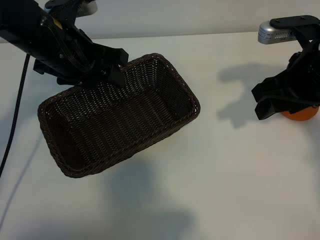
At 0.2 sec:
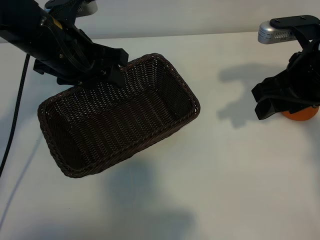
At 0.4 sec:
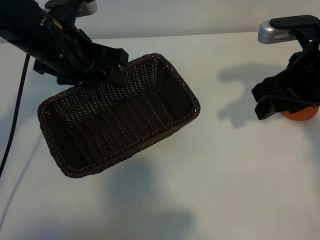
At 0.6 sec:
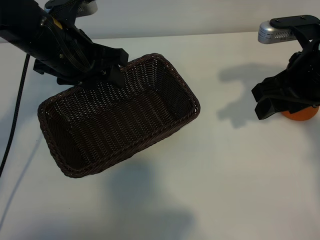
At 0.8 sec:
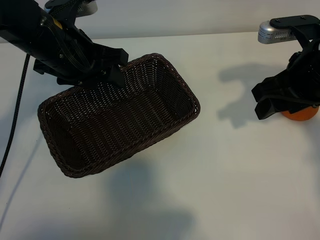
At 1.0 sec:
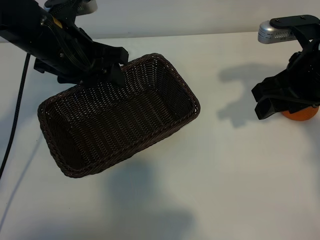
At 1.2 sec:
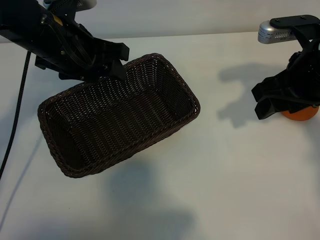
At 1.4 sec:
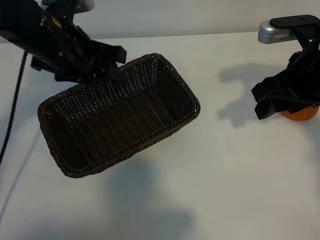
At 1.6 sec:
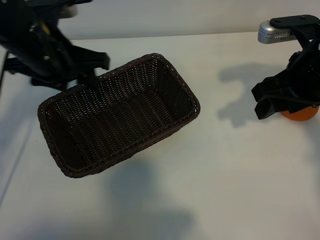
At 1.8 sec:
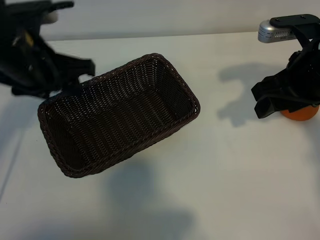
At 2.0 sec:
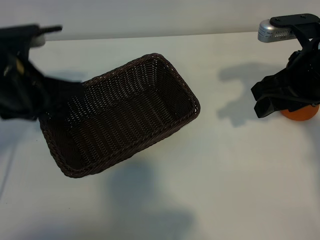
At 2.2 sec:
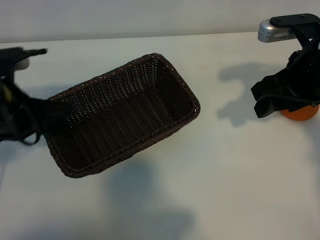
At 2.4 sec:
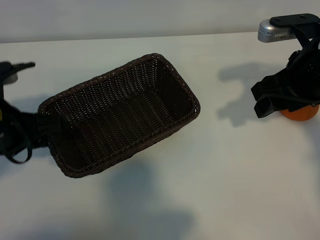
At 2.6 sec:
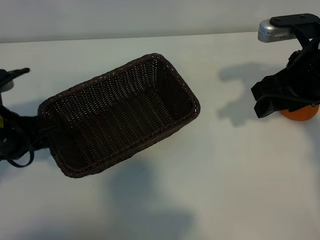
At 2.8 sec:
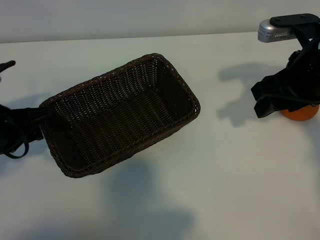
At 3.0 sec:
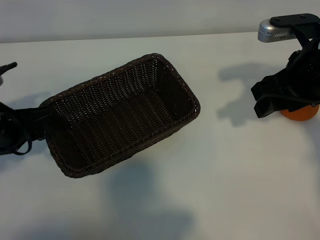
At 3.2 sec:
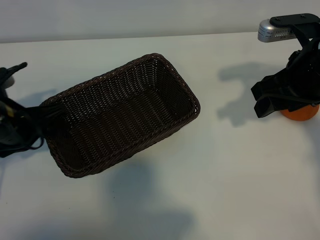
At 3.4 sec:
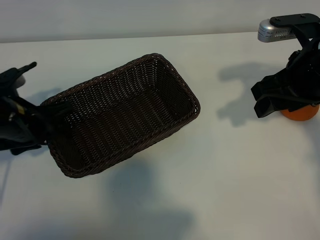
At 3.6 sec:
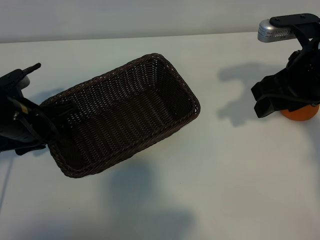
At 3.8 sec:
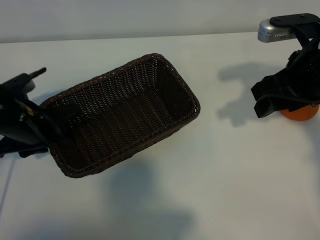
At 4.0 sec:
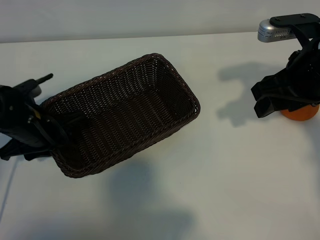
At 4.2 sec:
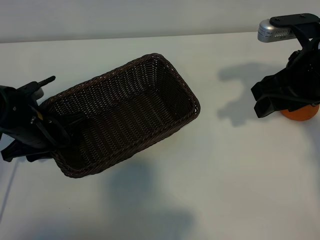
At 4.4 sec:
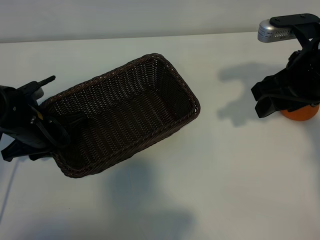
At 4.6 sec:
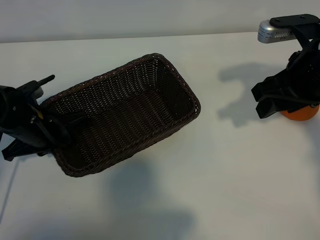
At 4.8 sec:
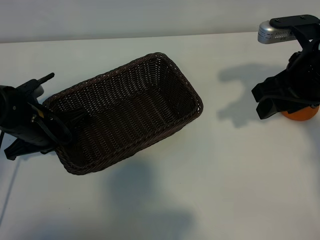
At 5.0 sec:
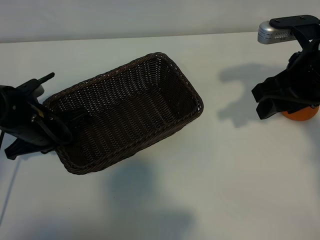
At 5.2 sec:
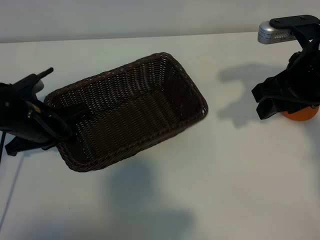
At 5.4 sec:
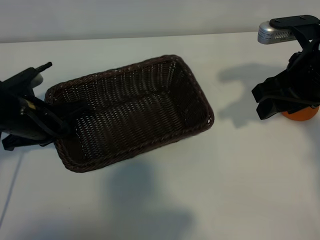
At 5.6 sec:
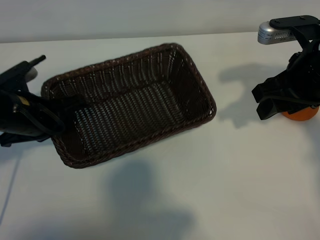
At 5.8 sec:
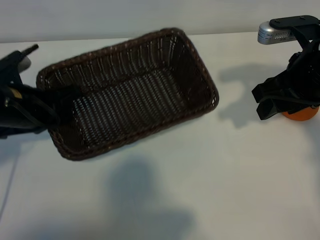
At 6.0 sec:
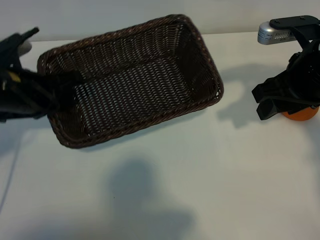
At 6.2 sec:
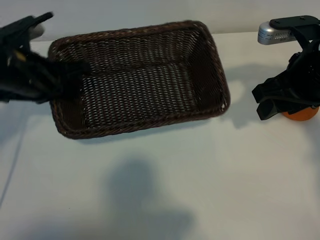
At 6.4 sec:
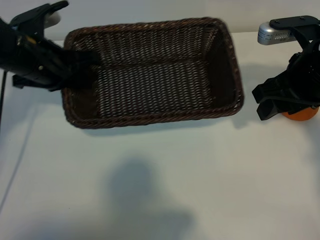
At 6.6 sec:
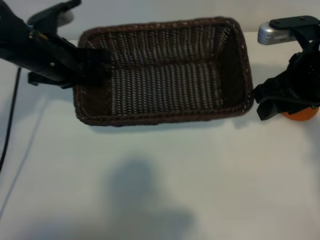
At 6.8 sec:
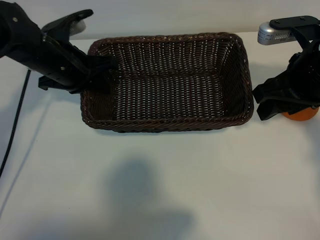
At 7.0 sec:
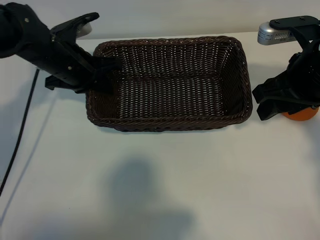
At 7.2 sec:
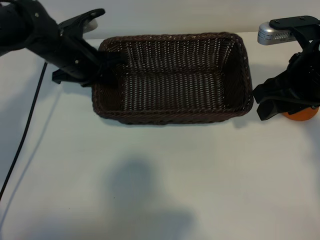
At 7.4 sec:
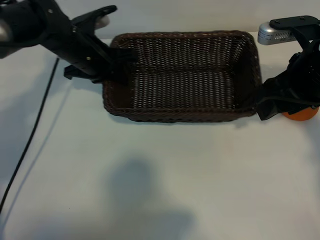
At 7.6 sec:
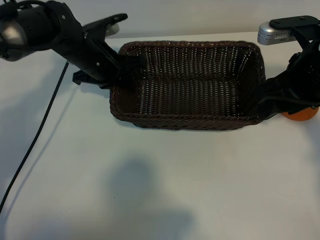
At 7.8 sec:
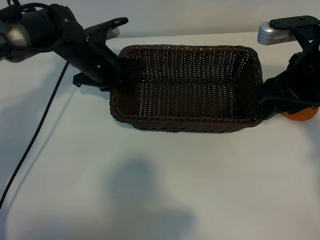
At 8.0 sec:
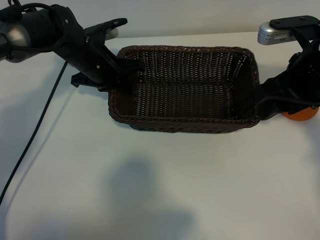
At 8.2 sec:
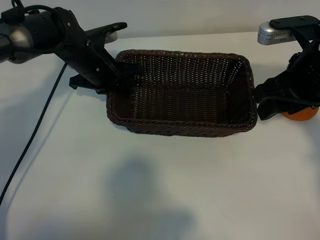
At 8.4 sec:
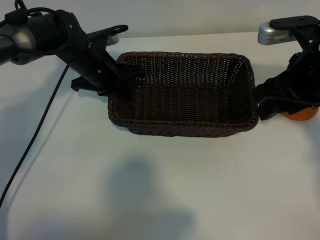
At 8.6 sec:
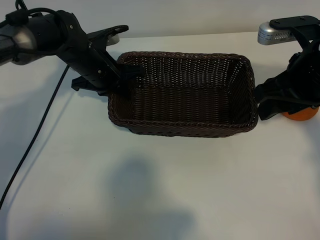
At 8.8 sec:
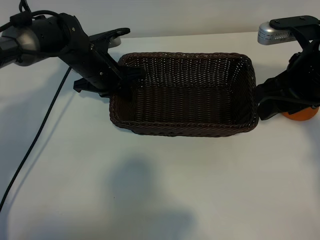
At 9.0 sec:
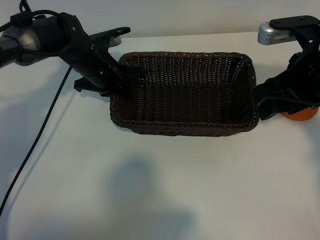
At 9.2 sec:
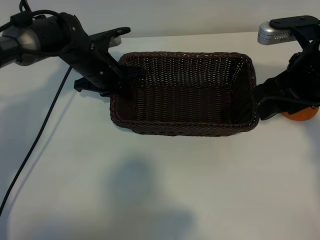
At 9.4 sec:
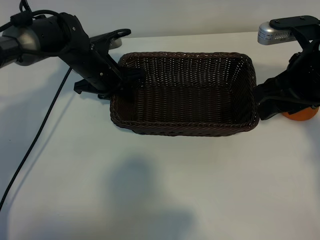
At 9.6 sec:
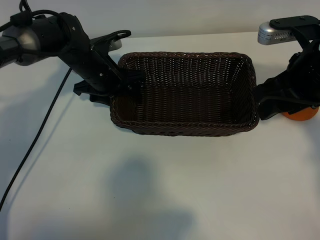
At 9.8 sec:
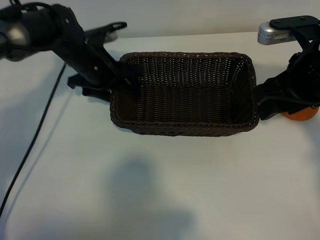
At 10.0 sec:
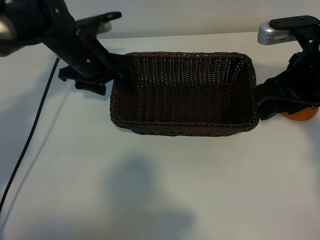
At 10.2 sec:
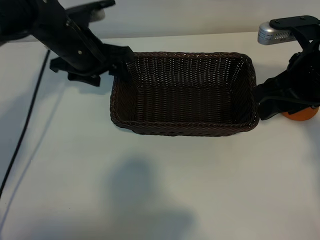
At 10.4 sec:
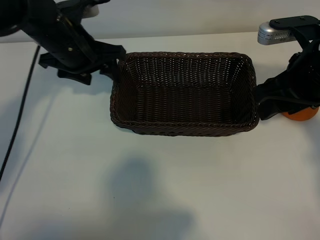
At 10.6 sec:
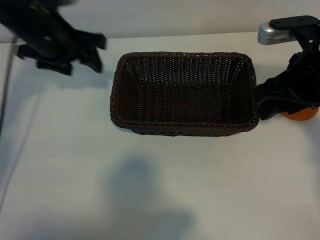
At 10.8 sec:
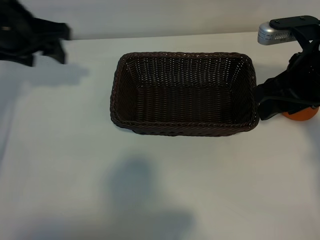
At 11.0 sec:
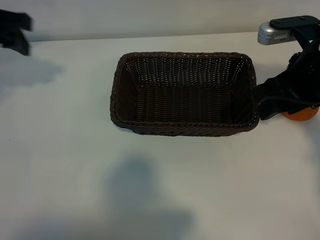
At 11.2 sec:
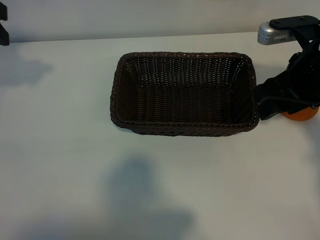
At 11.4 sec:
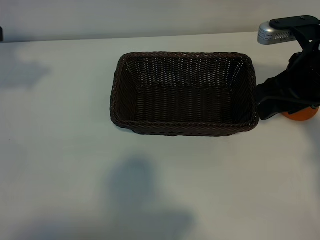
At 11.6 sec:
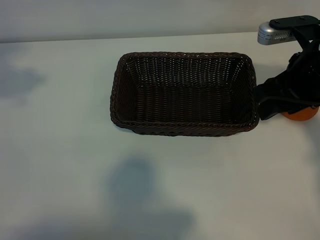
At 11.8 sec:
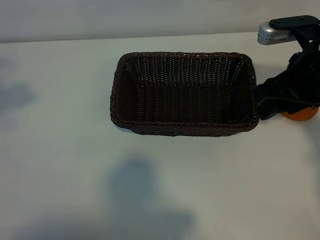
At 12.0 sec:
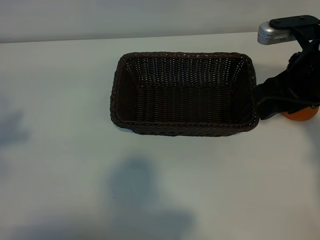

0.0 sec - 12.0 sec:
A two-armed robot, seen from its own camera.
Task of the whole recording: pick up the orange and put it into the basket.
Step, 1.0 sec - 4.6 sec: Grasp the basket with left gripper.
Step, 4.8 sec - 9.6 sec: Place the basket in the center of view with left gripper.

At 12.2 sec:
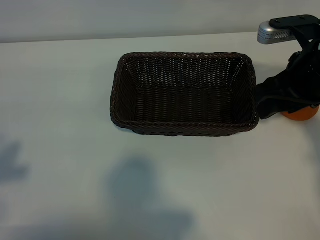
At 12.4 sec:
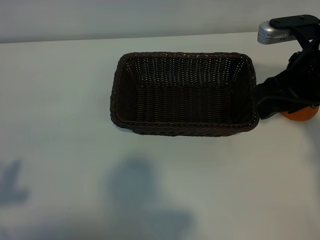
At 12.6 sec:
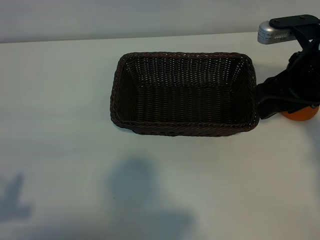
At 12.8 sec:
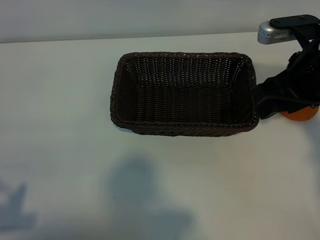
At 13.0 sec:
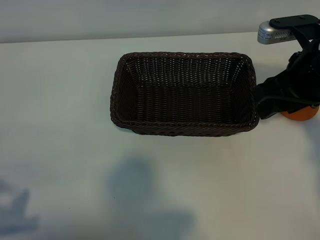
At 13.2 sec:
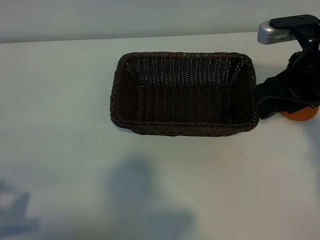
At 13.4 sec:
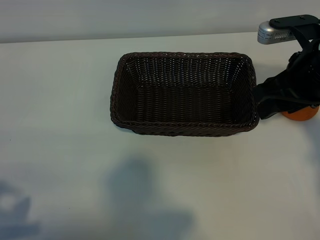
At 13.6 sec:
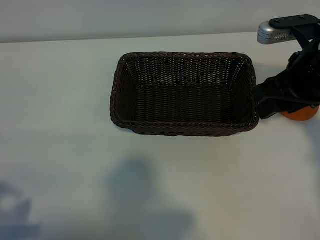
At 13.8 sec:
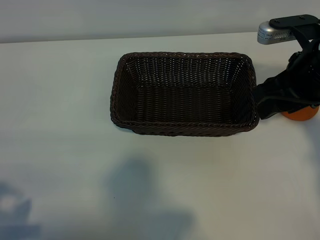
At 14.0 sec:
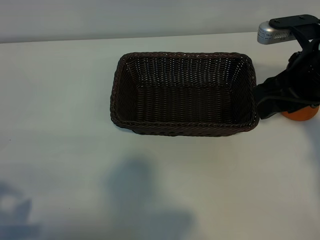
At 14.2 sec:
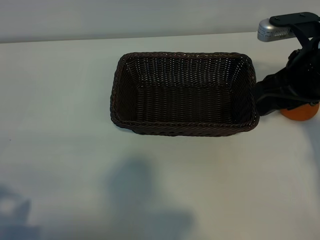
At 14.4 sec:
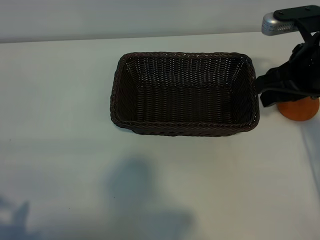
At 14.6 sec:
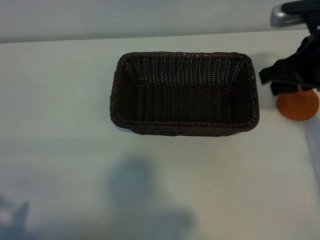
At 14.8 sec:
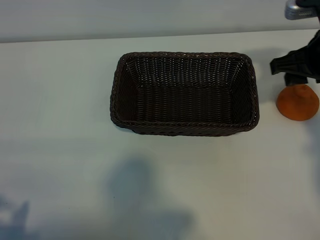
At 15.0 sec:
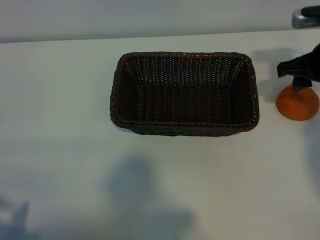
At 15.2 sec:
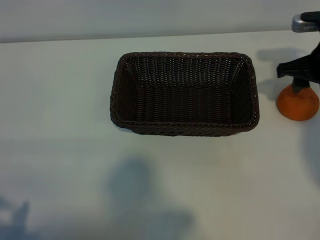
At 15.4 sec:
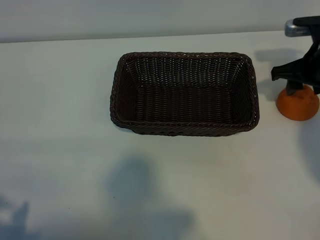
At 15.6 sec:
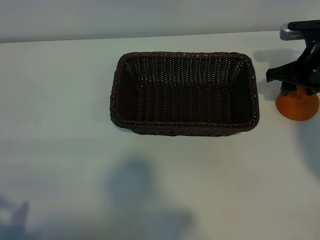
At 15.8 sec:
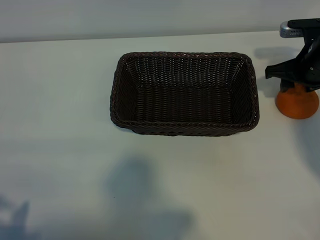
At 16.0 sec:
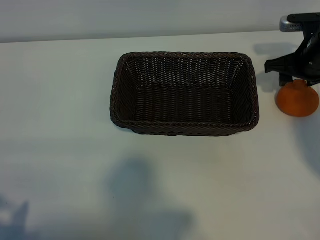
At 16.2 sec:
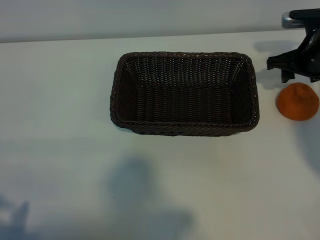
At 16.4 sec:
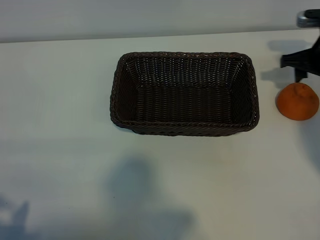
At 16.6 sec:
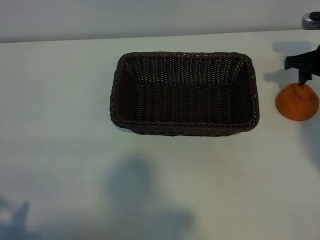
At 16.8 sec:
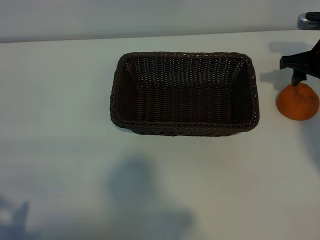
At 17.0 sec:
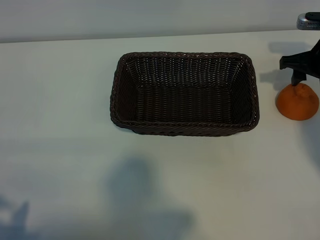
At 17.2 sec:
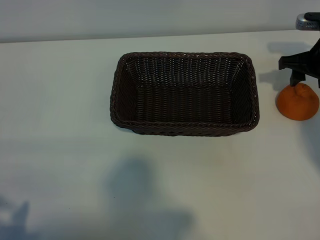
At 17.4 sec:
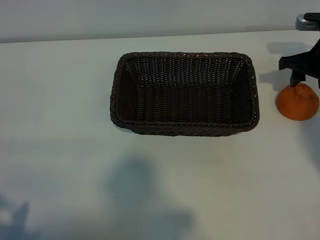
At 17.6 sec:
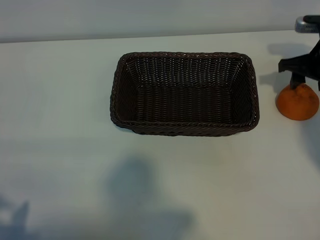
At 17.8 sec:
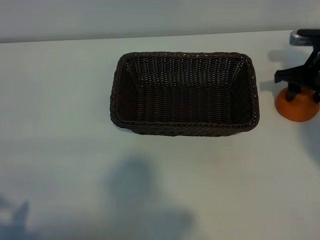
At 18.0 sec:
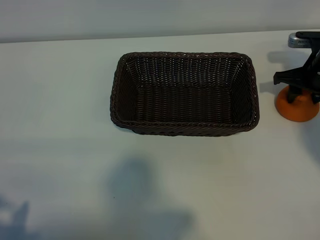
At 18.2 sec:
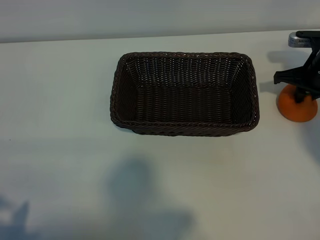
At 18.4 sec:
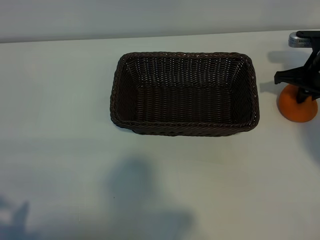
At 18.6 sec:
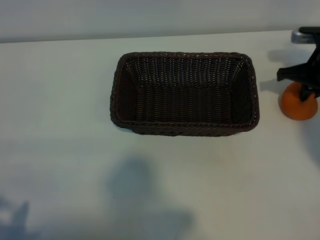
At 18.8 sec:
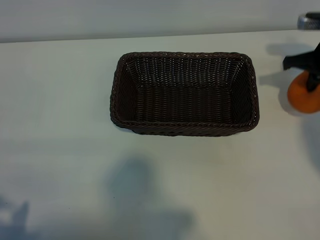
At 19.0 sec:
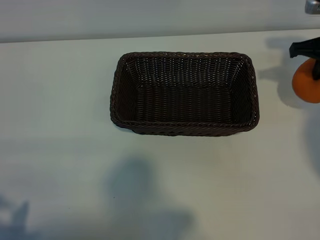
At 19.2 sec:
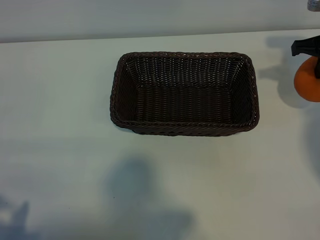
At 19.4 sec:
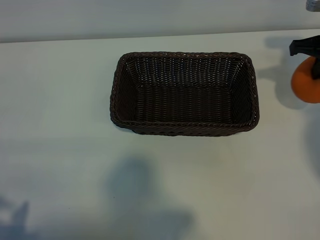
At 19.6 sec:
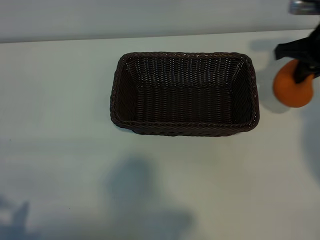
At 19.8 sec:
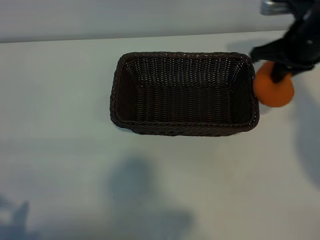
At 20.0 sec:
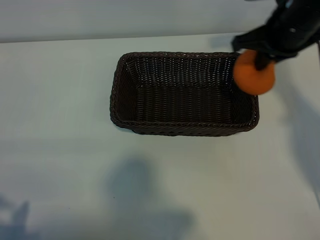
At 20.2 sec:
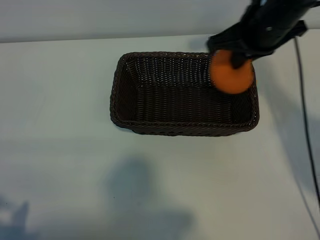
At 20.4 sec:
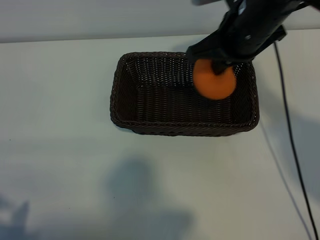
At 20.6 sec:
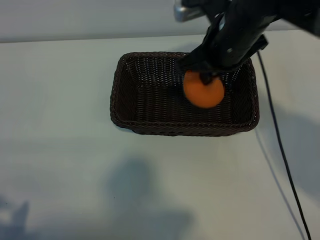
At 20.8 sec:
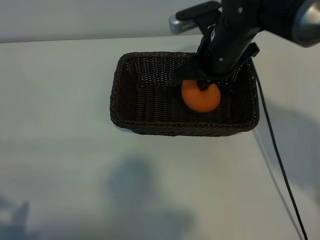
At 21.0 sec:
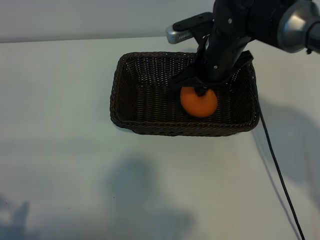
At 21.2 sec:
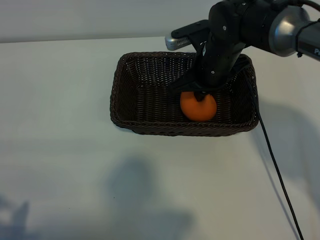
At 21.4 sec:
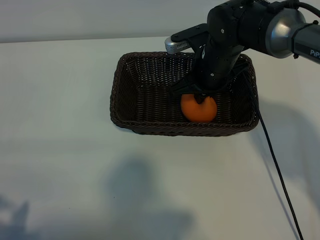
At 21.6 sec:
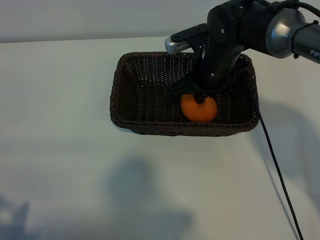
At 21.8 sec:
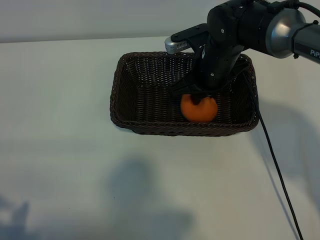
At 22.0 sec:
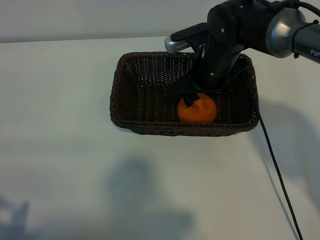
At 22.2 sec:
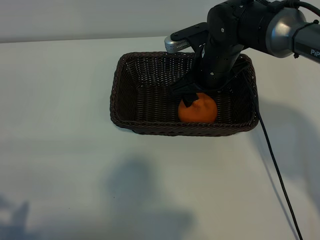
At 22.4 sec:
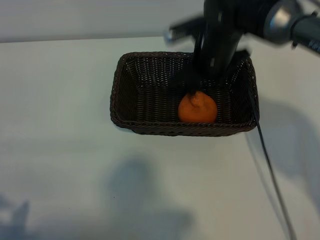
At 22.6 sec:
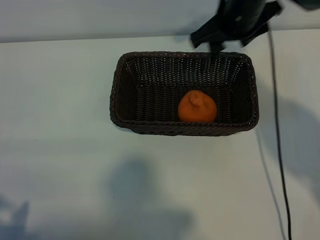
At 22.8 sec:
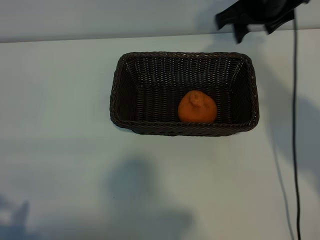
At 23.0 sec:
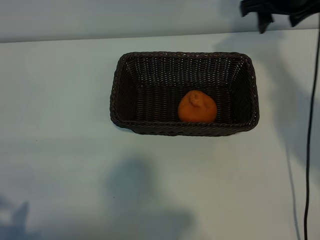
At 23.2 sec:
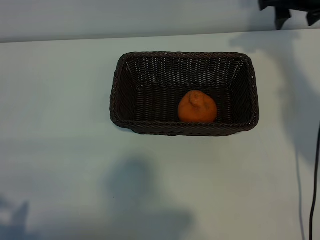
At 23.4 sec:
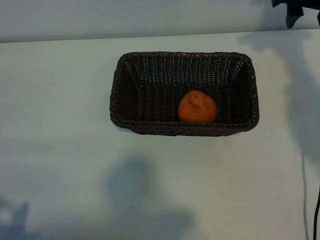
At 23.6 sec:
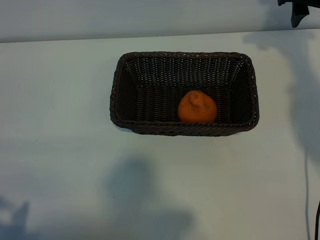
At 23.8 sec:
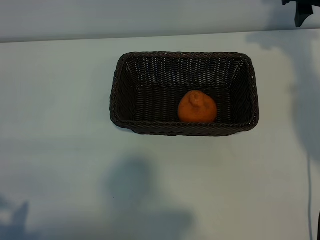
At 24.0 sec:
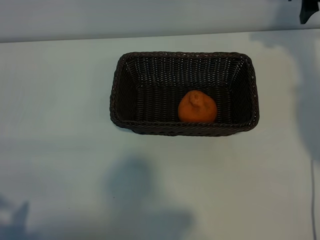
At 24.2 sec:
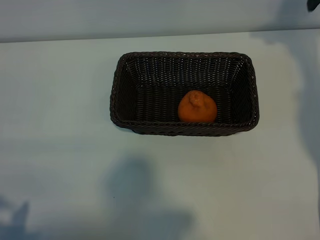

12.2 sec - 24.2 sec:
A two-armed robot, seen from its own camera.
Task of the whole recording: pick up the orange and put it into the basket.
Step, 12.2 sec - 18.4 sec: Grasp the orange with right gripper.
Step, 18.6 sec - 21.8 sec: Place the orange in the basket with right gripper.
